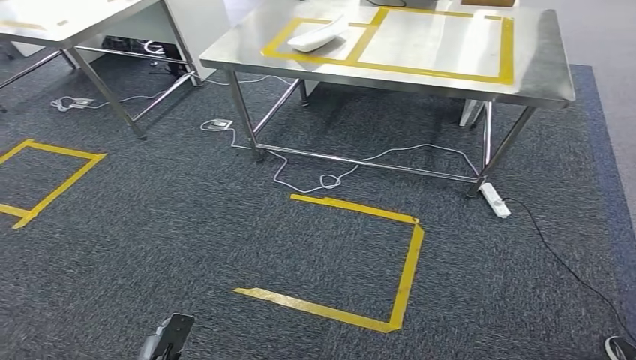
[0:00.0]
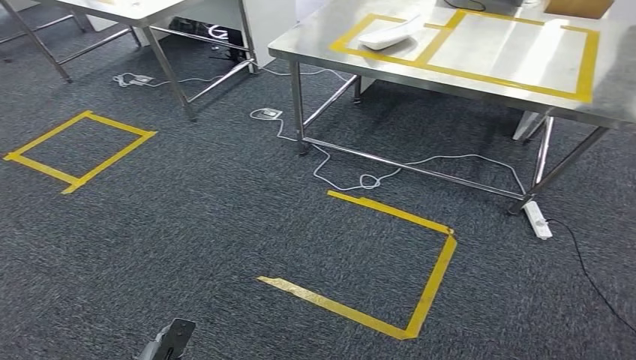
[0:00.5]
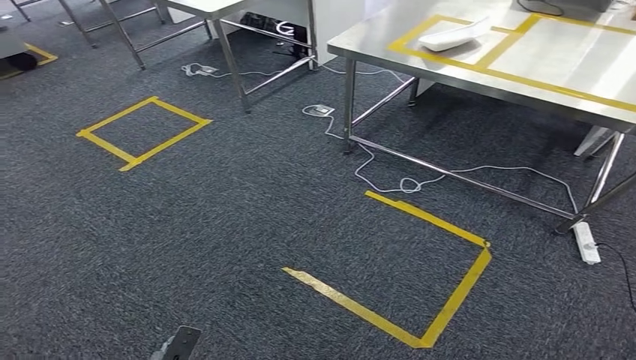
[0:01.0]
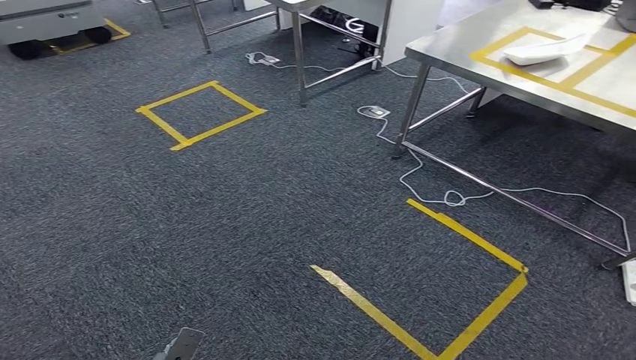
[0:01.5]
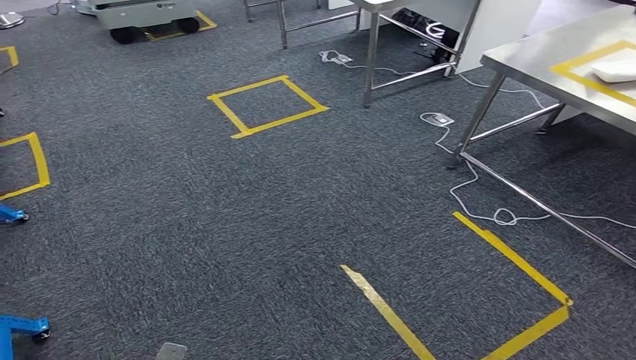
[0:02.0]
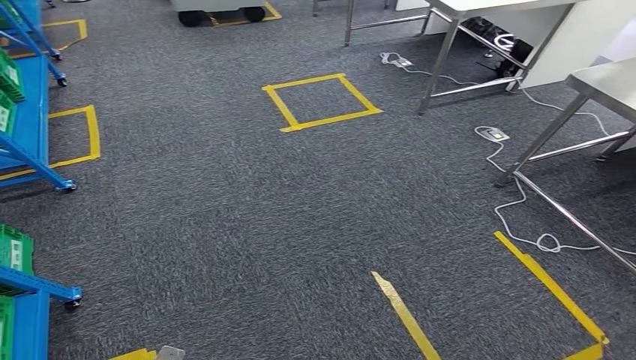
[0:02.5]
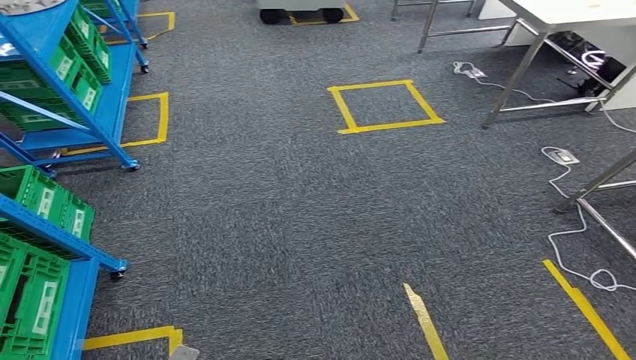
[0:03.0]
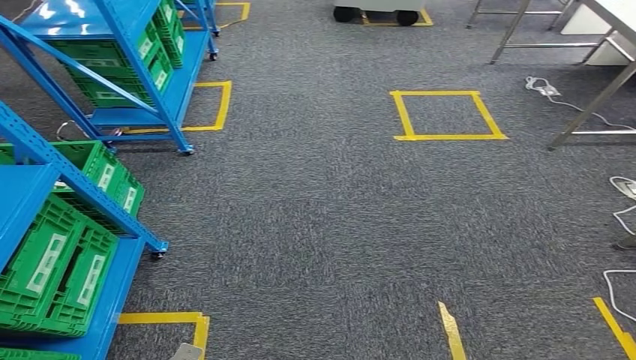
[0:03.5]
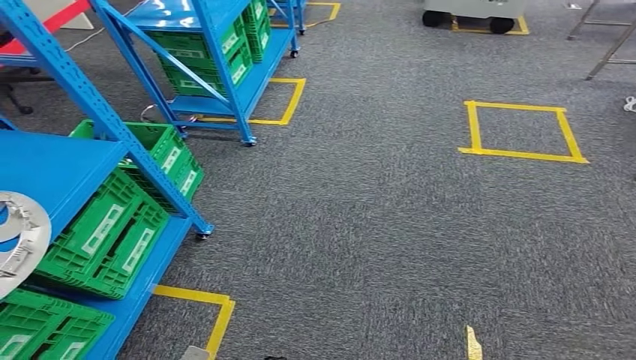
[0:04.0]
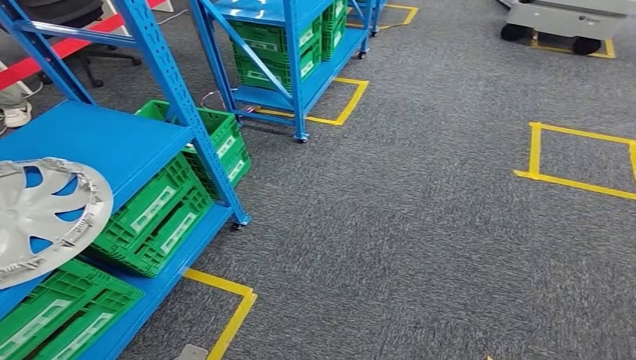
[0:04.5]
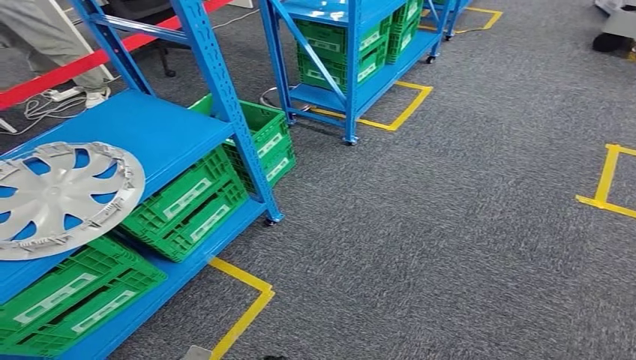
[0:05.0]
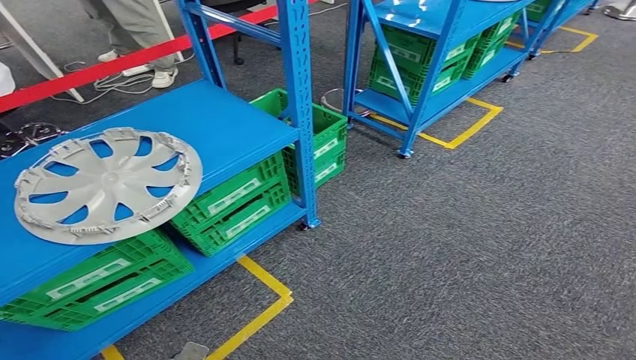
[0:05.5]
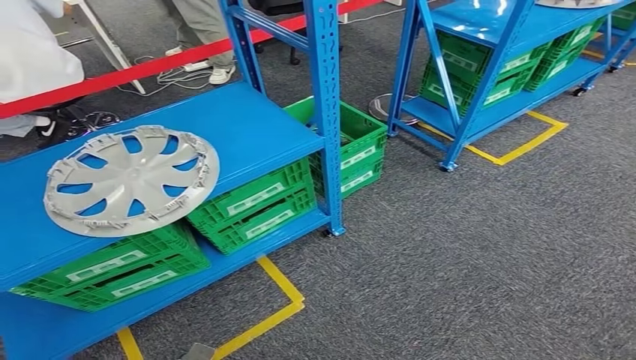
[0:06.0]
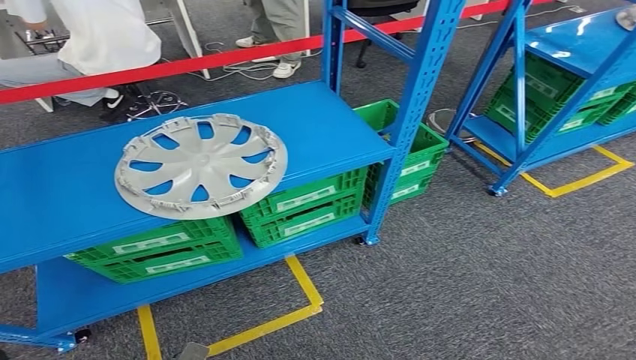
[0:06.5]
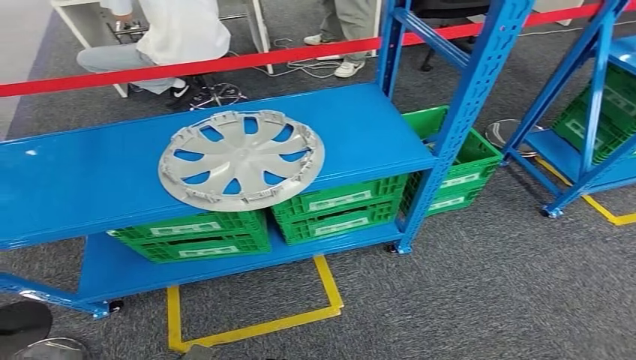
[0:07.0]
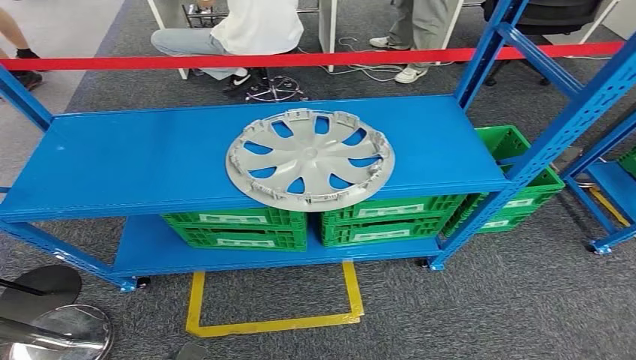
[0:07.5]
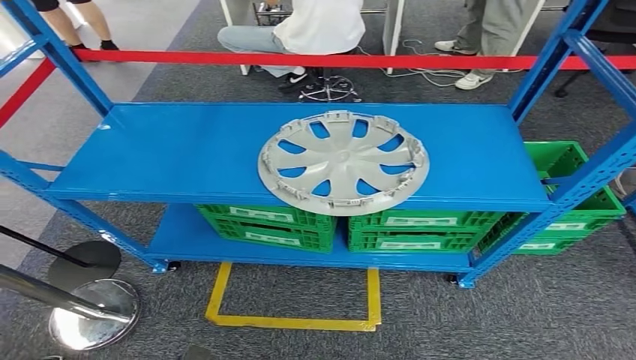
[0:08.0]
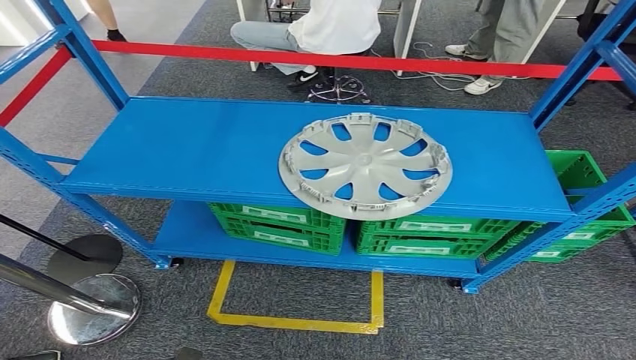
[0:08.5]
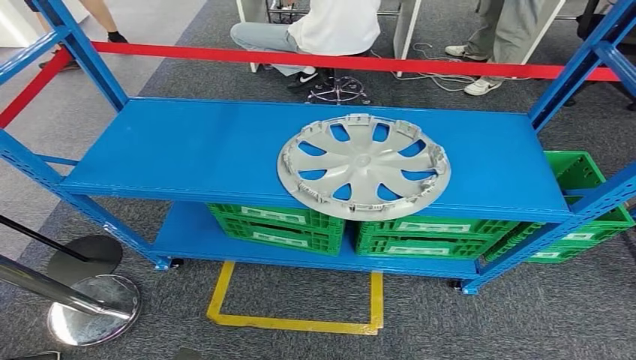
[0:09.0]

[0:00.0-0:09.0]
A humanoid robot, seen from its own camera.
Step, 0:00.0 to 0:09.0: Return to the initial position at the workbench.
